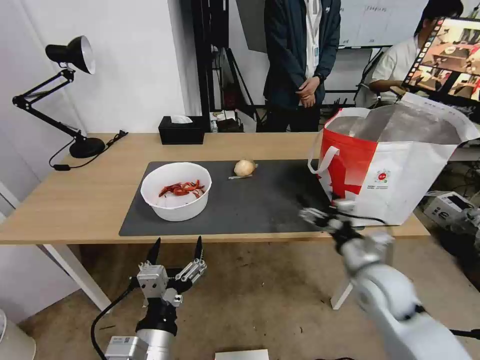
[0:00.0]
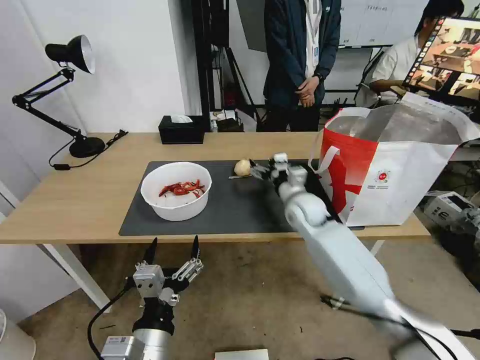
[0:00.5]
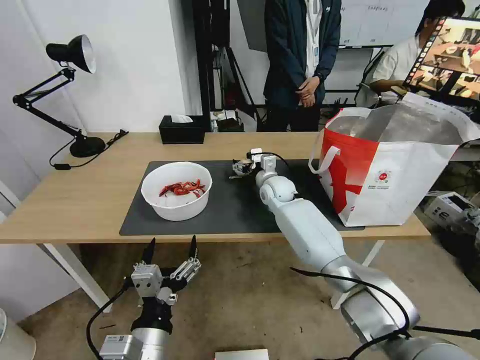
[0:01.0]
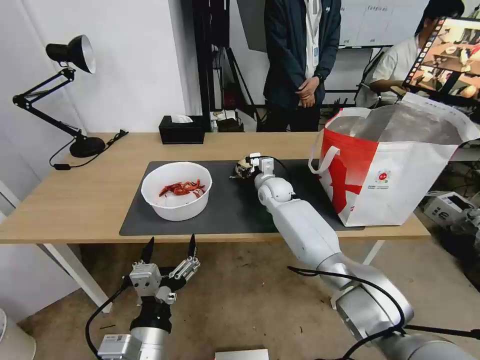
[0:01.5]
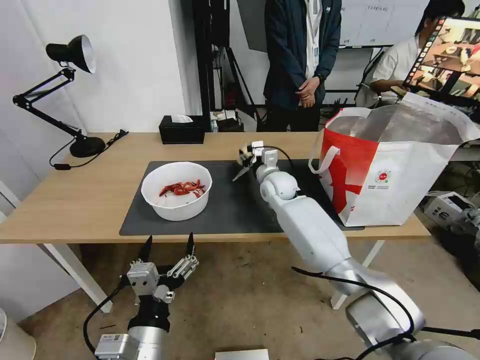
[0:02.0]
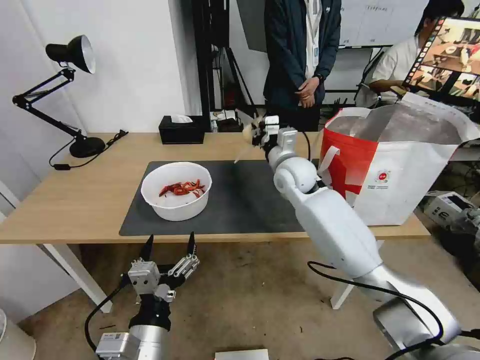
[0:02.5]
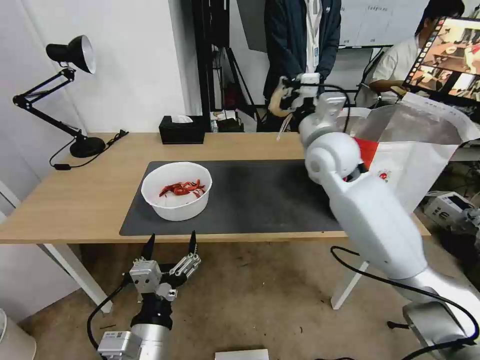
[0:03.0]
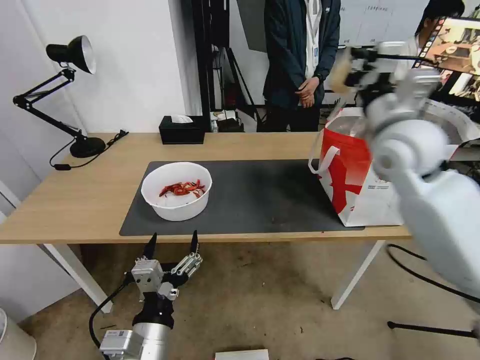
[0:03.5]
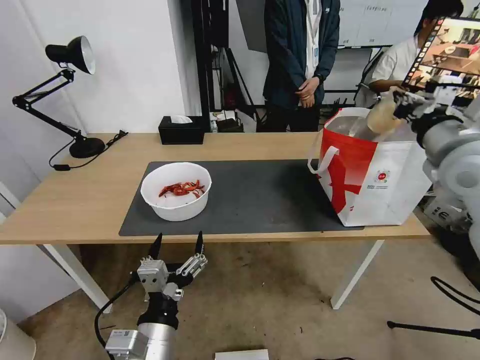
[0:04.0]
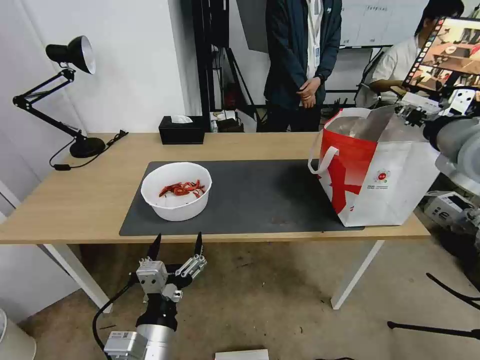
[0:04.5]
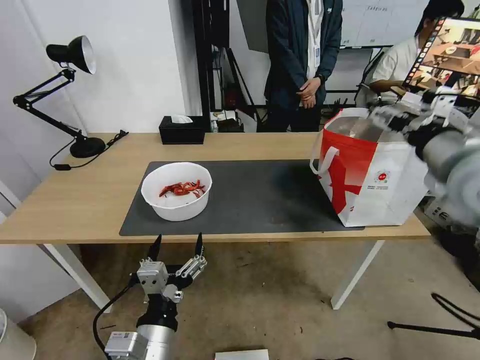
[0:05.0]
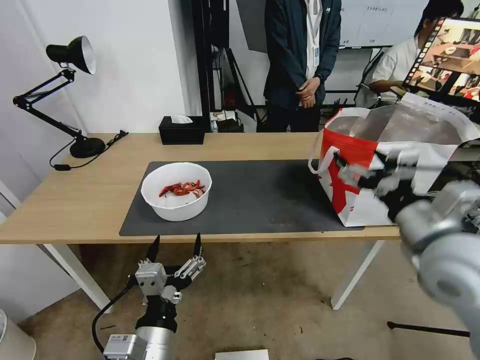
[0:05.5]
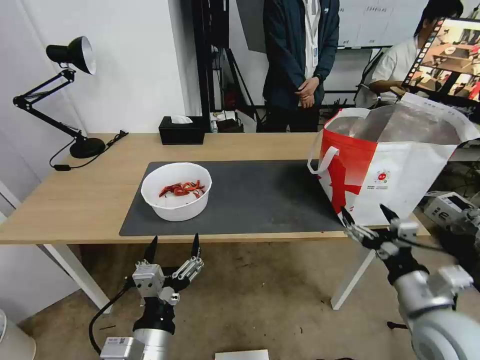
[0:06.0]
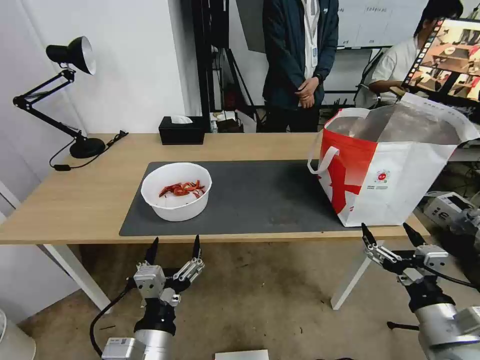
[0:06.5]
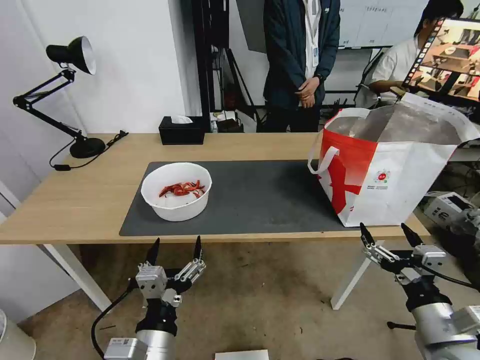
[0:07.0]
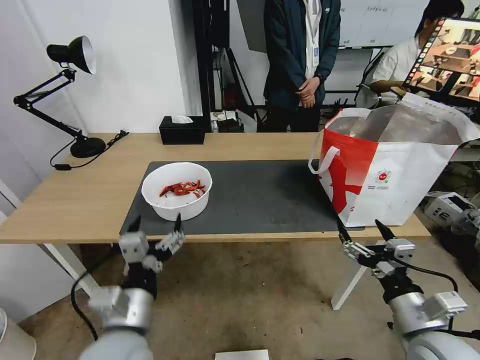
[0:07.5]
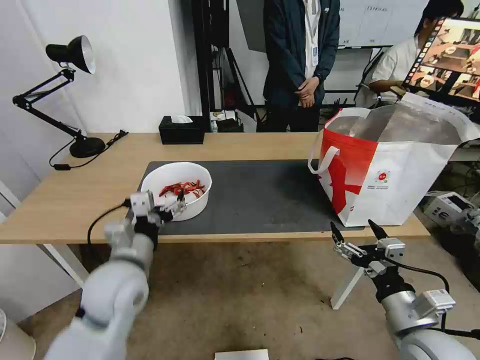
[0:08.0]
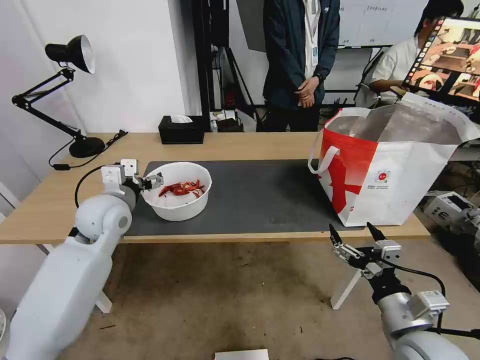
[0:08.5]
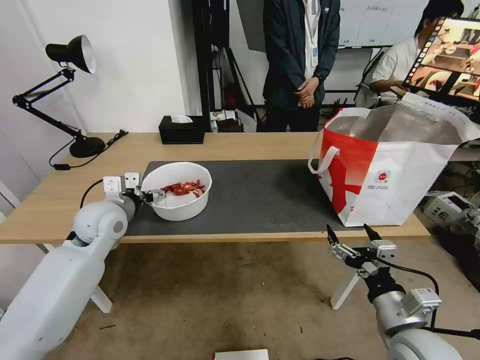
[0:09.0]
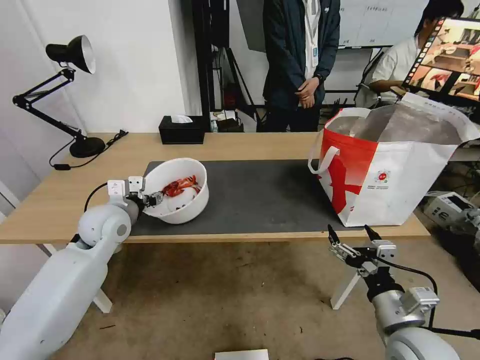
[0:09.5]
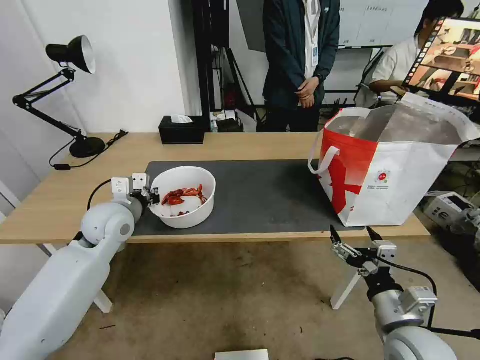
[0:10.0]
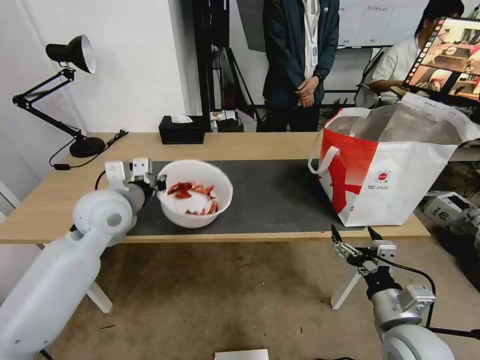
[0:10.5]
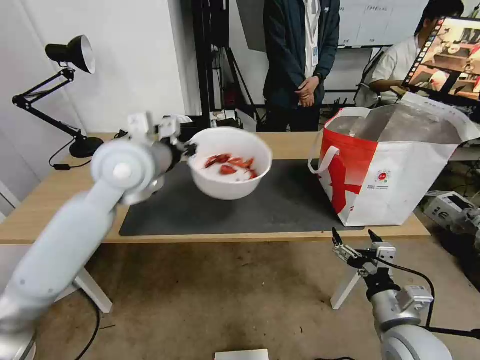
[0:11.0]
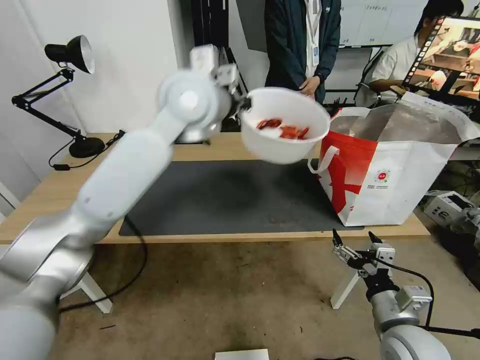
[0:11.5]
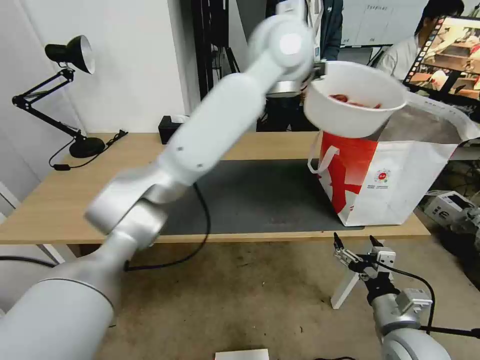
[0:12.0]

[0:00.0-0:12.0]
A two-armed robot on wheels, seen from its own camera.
Task of the whole recording: Pick up the trash from the table and place it into the takeout bag.
0:00.0 to 0:02.0: The right gripper travels forward and to the left by roughly 30 cm, and closes.
0:02.0 to 0:04.0: The right gripper shifts some 40 cm to the right, upward and backward, and closes up.
0:04.0 to 0:06.0: The right gripper shifts about 25 cm downward and backward, and opens its fingers.
0:06.0 to 0:08.0: The left gripper is displaced forward and to the left by approximately 15 cm.
0:08.0 to 0:10.0: The left gripper shifts about 15 cm forward and to the left, and closes up.
0:10.0 to 0:12.0: The left gripper shifts approximately 50 cm to the right and upward.

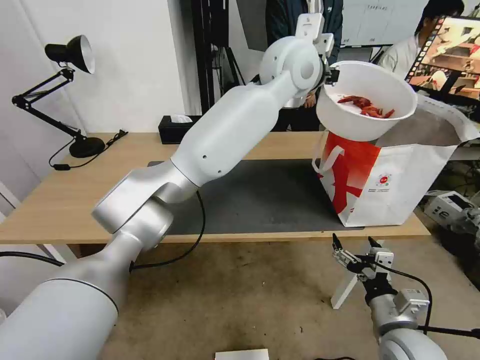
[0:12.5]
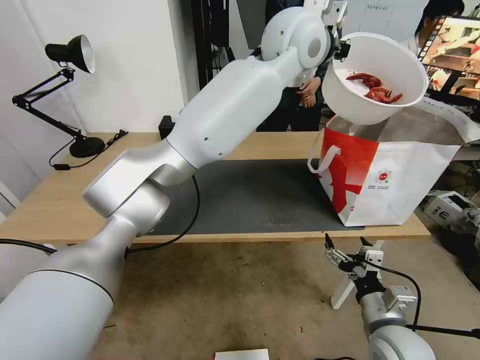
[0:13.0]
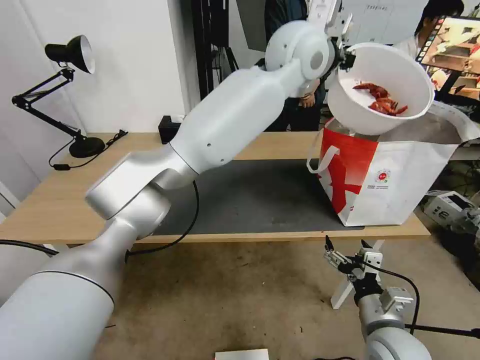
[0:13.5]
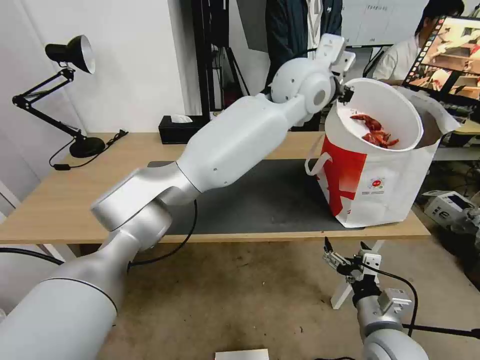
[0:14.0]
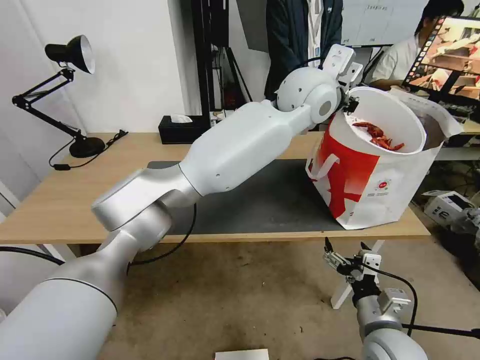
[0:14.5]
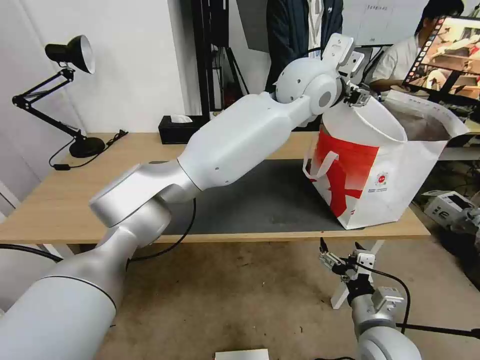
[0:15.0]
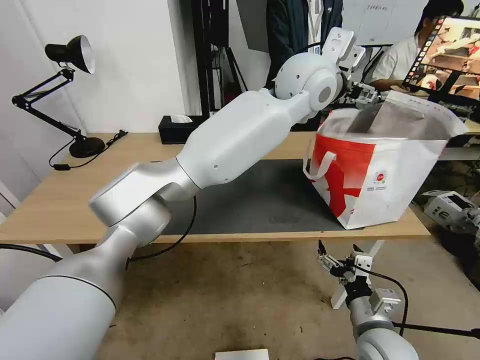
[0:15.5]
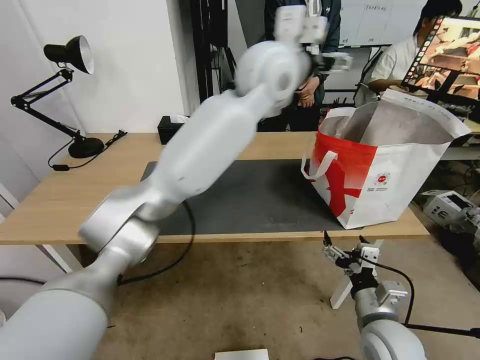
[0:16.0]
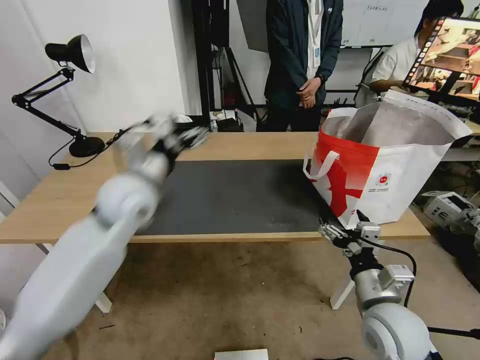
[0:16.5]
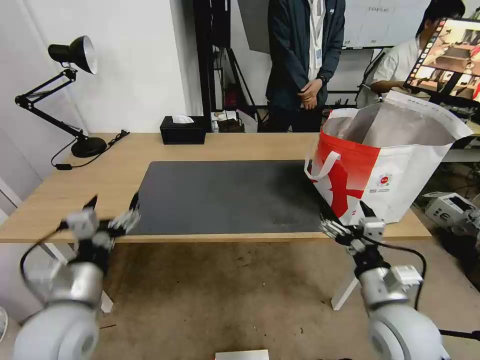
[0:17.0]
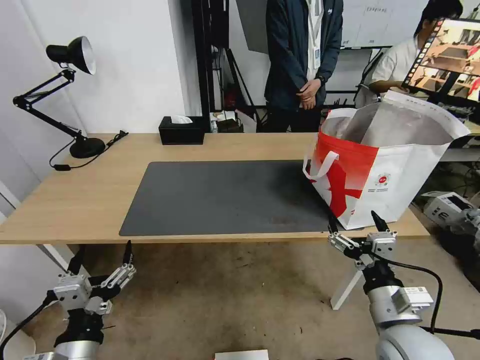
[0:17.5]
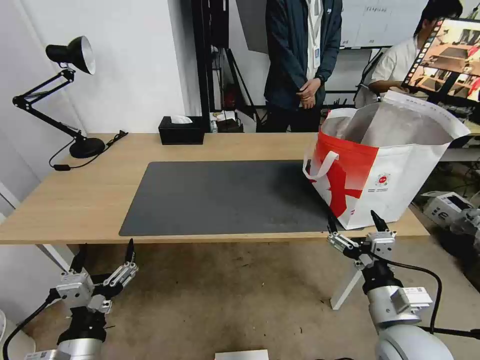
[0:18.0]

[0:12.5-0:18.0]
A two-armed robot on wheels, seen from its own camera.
Task of the whole recording: Pick up the trash from the table and place it into the takeout bag.
0:12.5 to 0:14.5: The left gripper shifts by approximately 5 cm.
0:14.5 to 0:16.0: The left gripper goes approximately 10 cm to the left, and opens up.
0:16.0 to 0:18.0: The left gripper moves backward, downward and to the left, roughly 60 cm; the right gripper heads upward, covering roughly 5 cm.

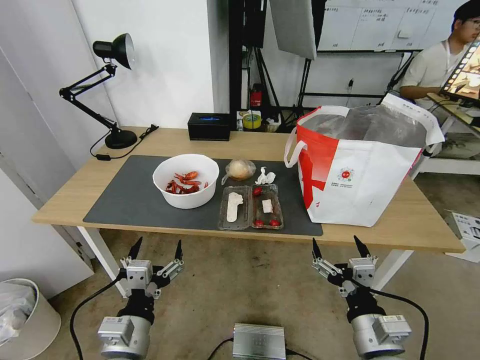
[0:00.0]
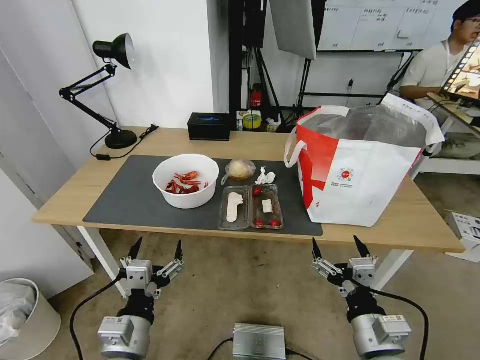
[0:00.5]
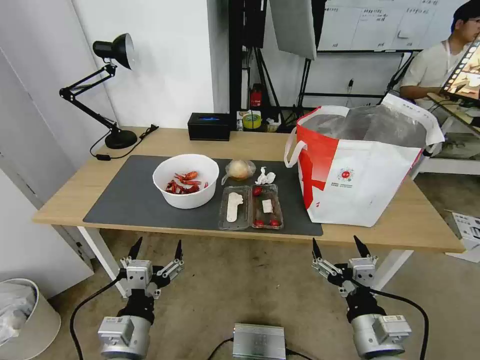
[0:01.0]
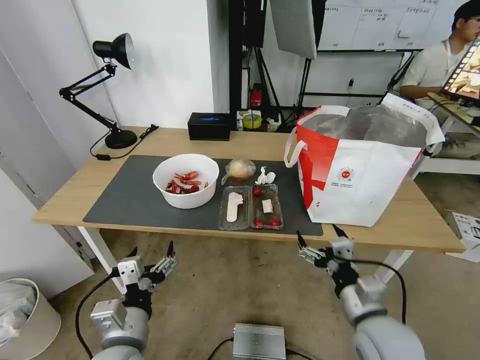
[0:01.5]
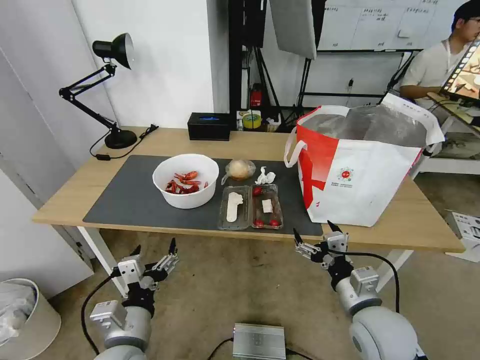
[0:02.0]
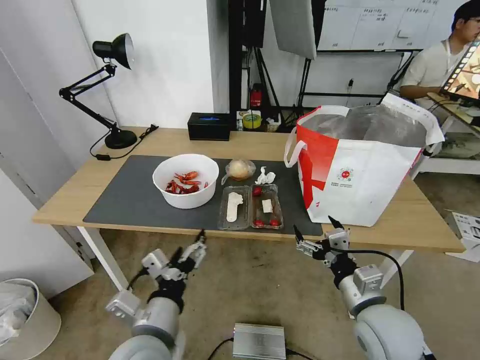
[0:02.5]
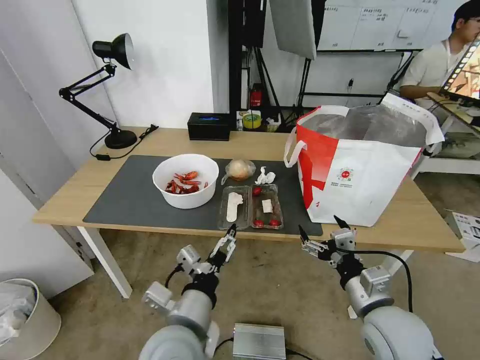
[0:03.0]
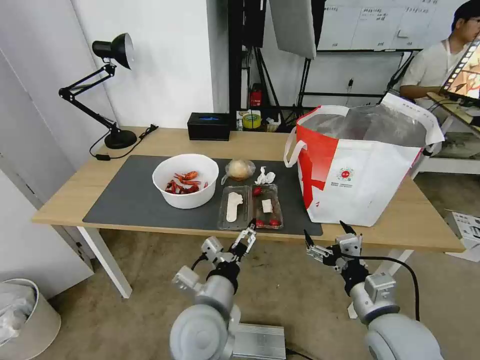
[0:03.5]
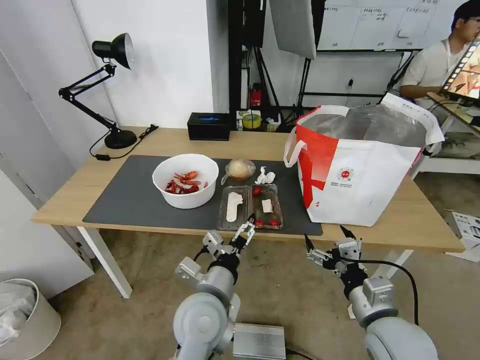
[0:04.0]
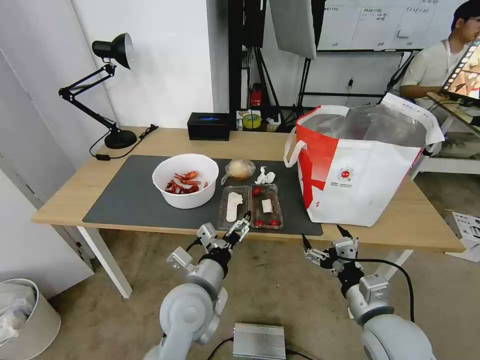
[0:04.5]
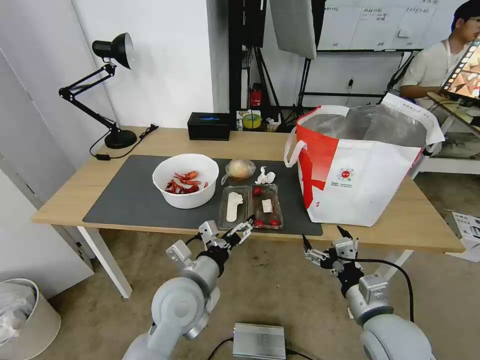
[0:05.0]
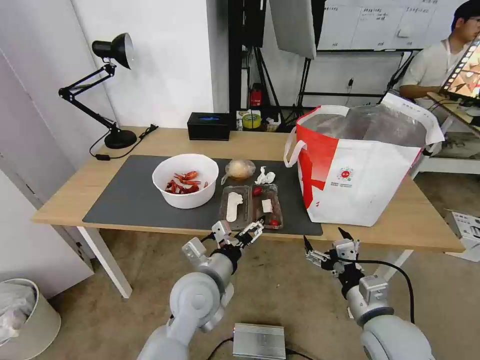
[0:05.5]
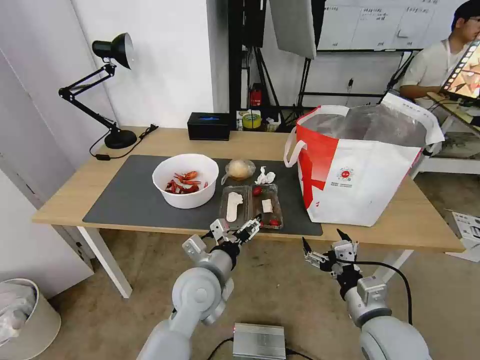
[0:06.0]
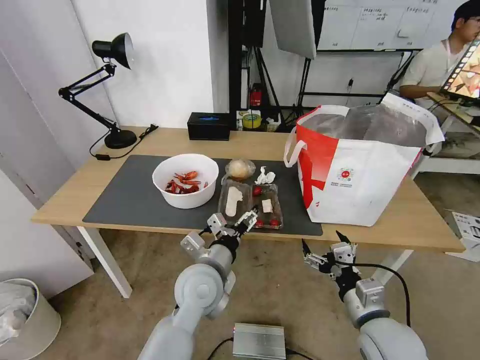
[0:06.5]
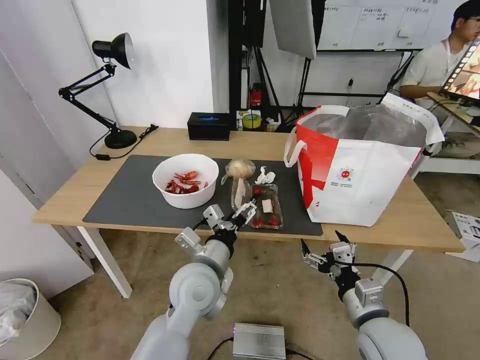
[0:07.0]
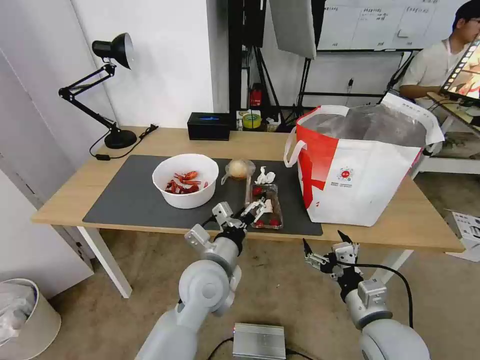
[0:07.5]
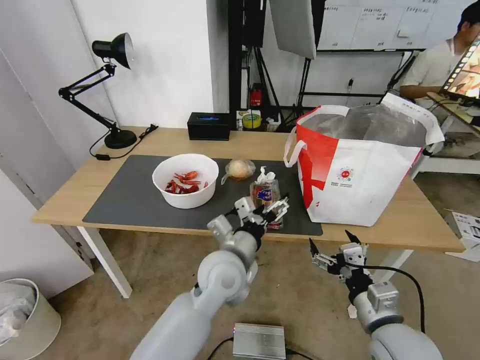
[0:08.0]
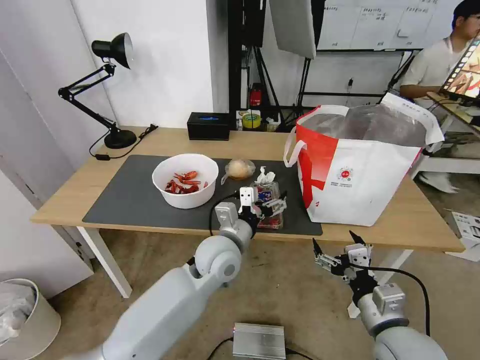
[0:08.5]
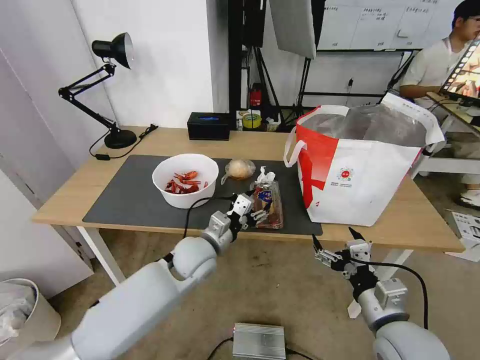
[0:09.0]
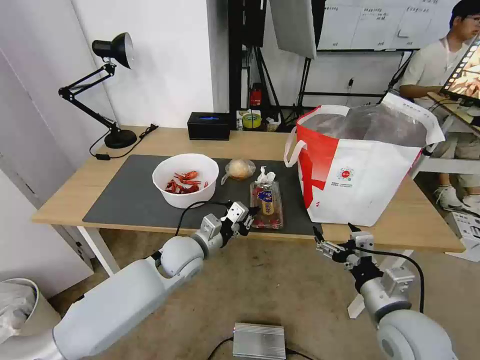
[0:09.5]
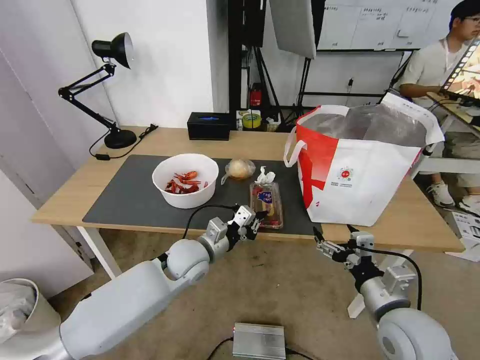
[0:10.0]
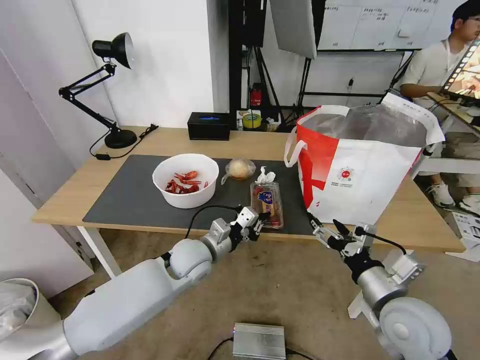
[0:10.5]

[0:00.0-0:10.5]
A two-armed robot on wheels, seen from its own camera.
Task of the whole recording: Pick up the trash from the table and place it into the takeout bag.
0:02.0 to 0:04.0: The left gripper shifts approximately 15 cm to the right and forward.
0:04.0 to 0:06.5: The left gripper heads forward, covering roughly 5 cm.
0:06.5 to 0:08.5: The left gripper is displaced forward by about 5 cm.
0:08.5 to 0:10.5: The left gripper goes roughly 5 cm to the left, and closes. The right gripper moves roughly 5 cm.
